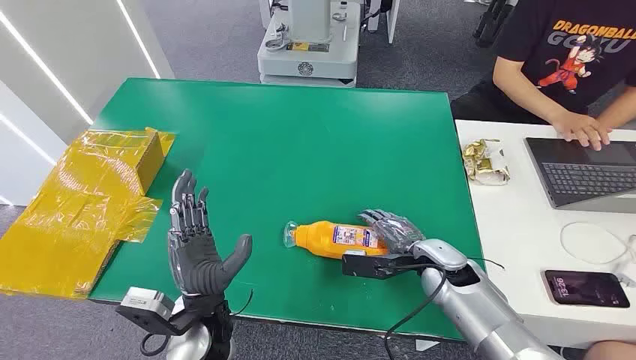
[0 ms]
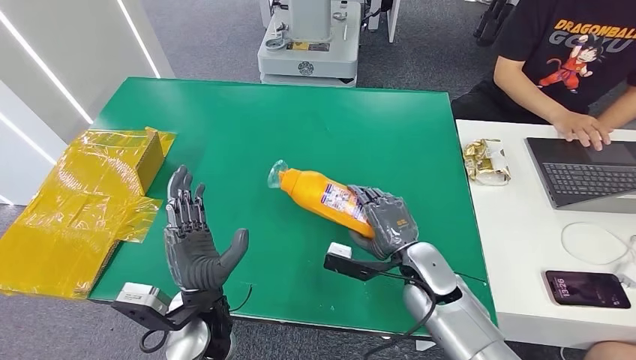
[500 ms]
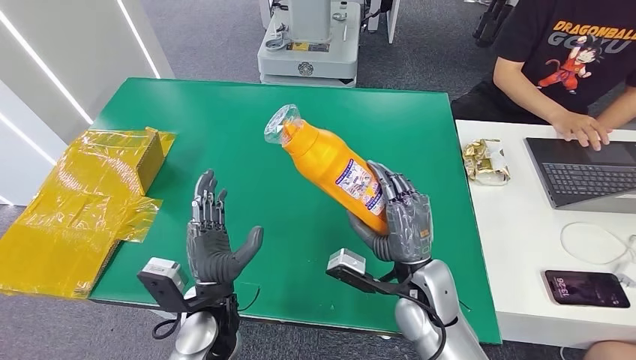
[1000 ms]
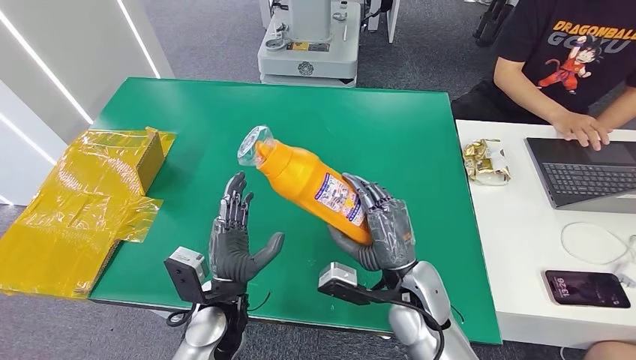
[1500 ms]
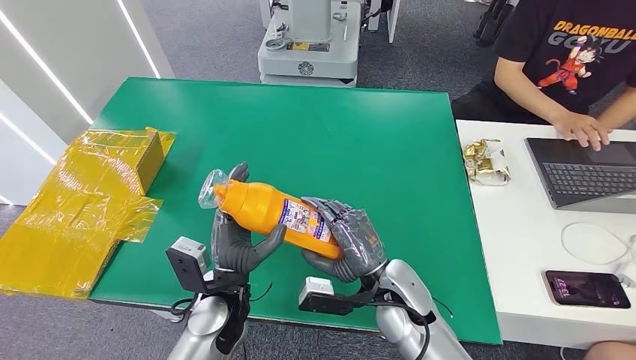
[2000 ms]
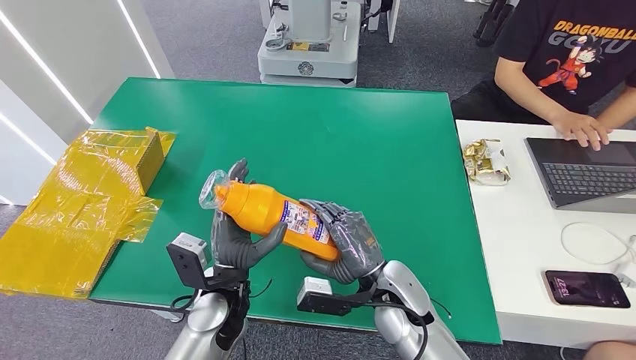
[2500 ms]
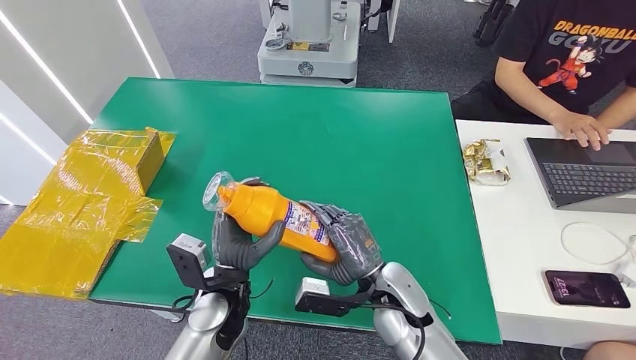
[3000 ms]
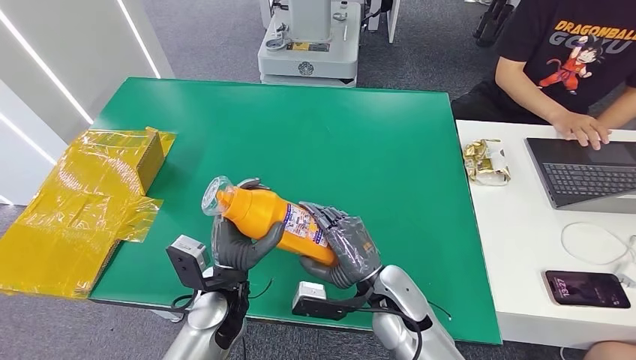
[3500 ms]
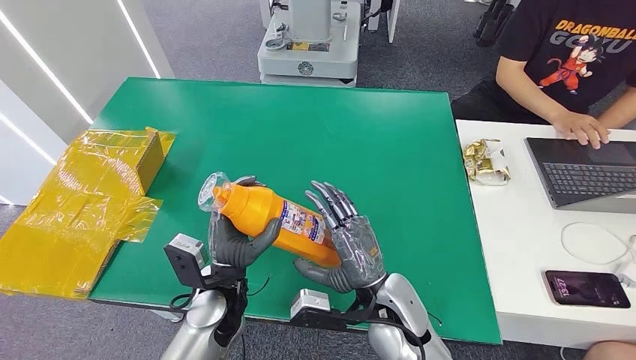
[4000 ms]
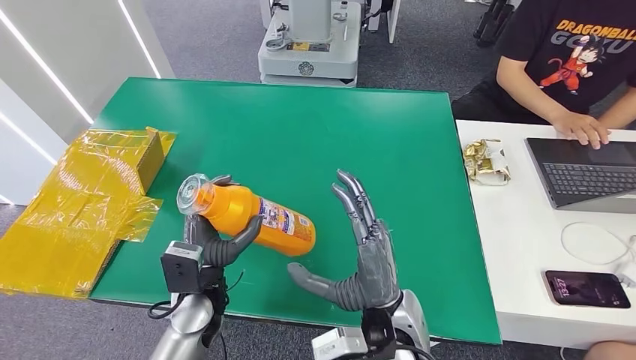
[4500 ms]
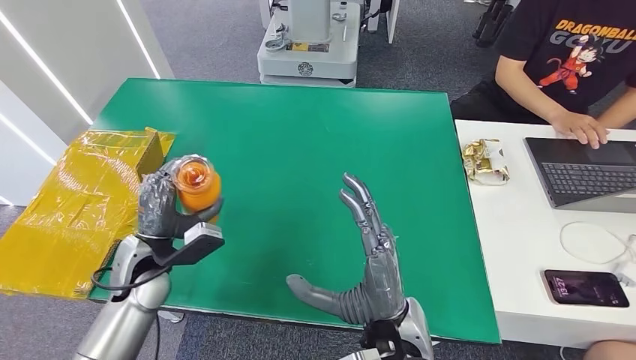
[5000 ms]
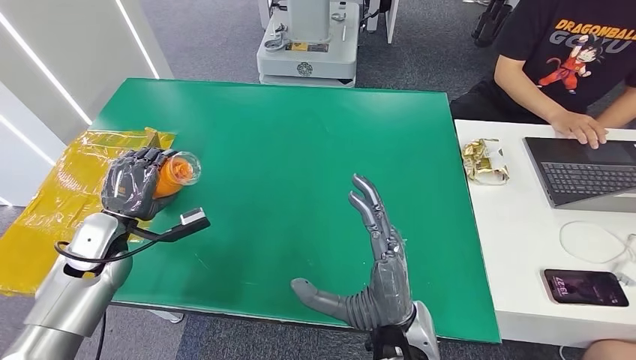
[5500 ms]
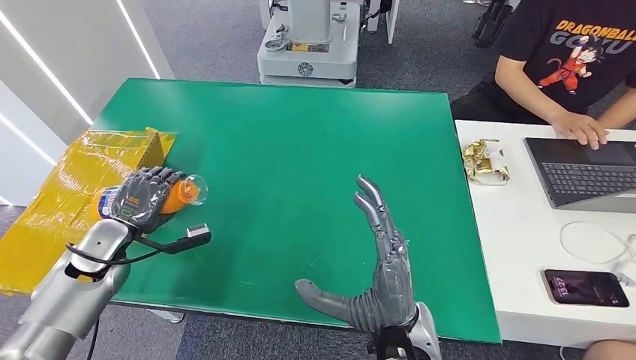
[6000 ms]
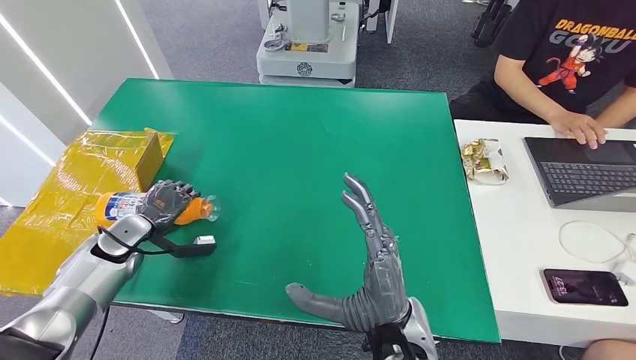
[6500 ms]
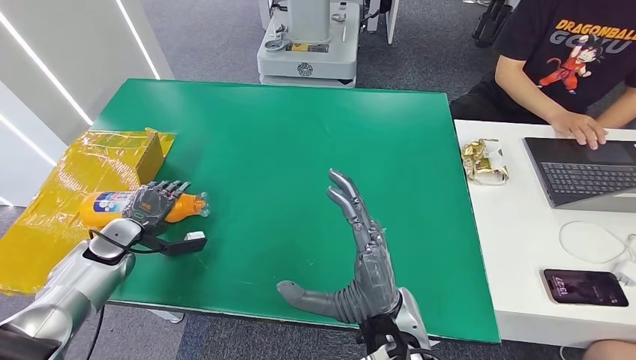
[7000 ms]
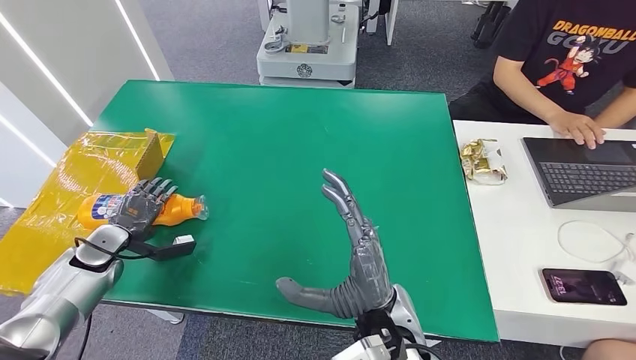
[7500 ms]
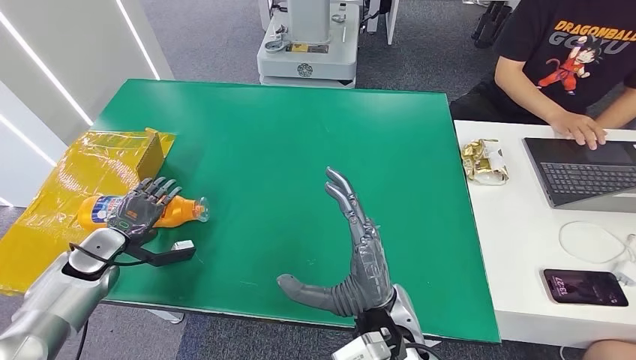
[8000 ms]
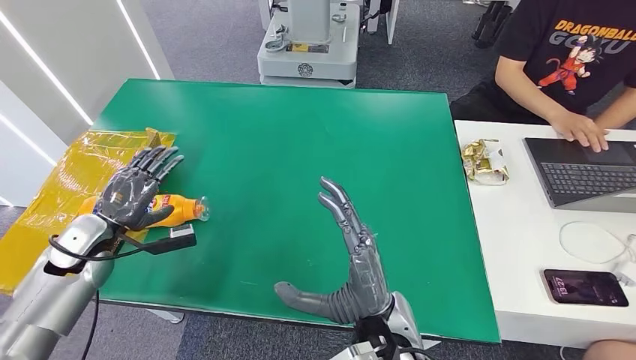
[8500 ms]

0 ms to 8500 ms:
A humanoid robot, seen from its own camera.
Step, 0 ms to 3500 ms: Pick up the bottle from the table.
Step, 4000 ms to 8500 ms: Turn the bottle to the front side.
2000 ms to 4000 ms: The hands make only small movements.
4000 ms to 6500 ms: The right hand shifts roughly 5 cm upward. The left hand travels to the left by roughly 25 cm.
6500 ms to 8500 ms: The left hand changes place by some 5 cm.

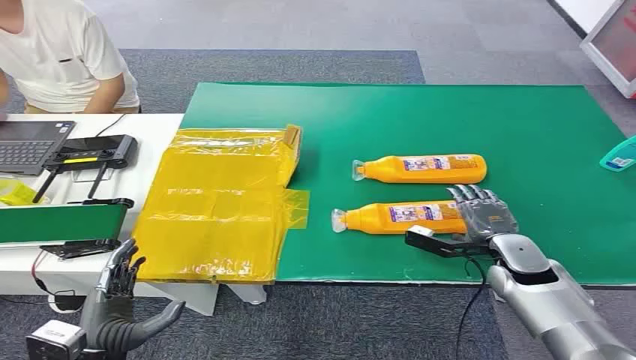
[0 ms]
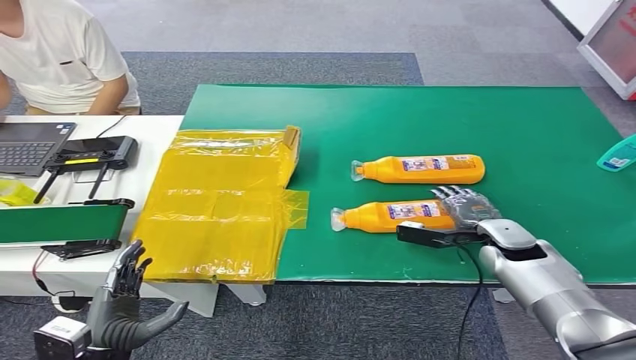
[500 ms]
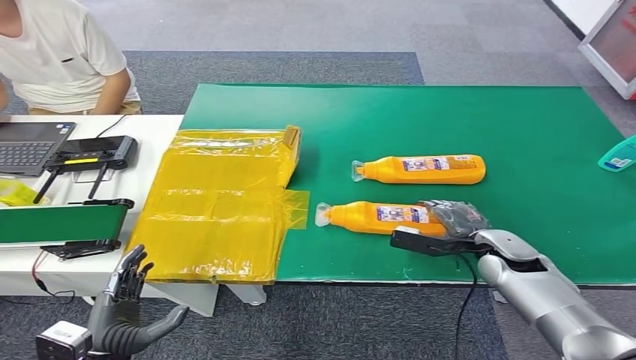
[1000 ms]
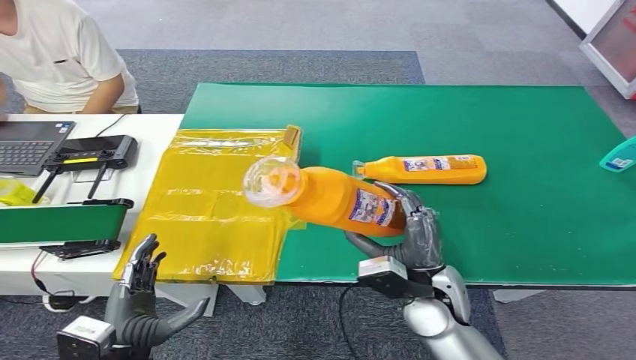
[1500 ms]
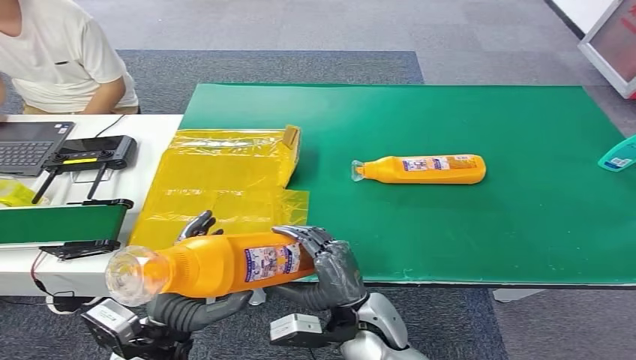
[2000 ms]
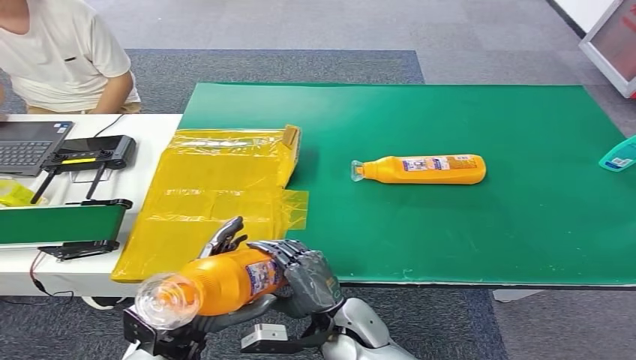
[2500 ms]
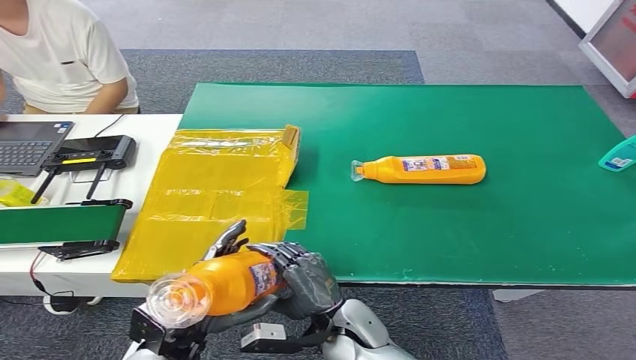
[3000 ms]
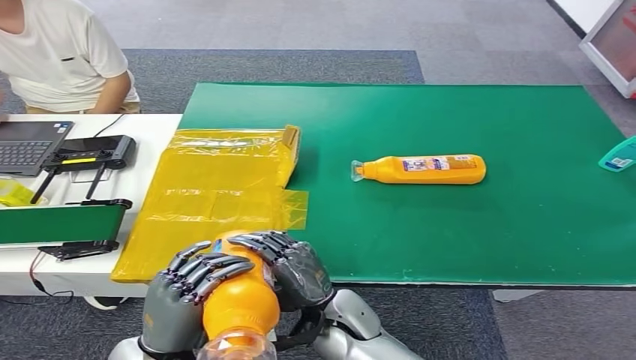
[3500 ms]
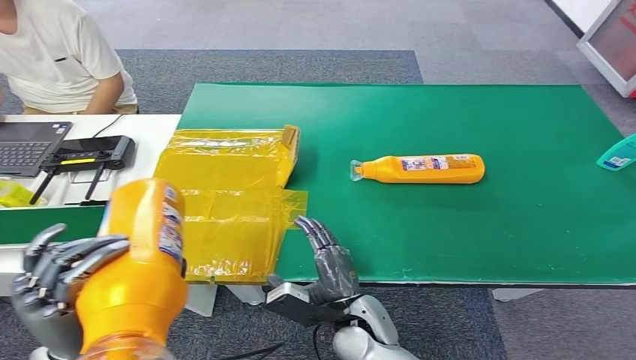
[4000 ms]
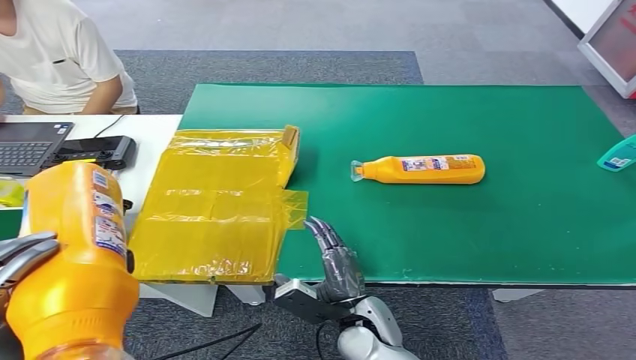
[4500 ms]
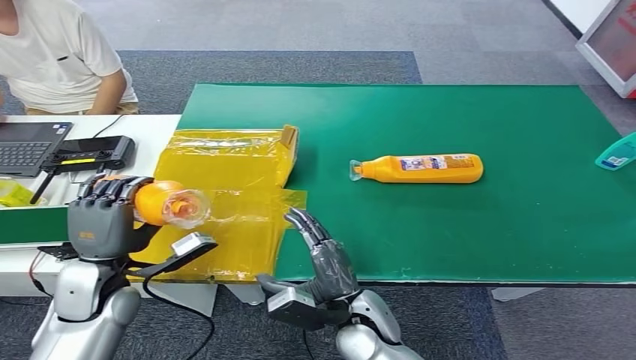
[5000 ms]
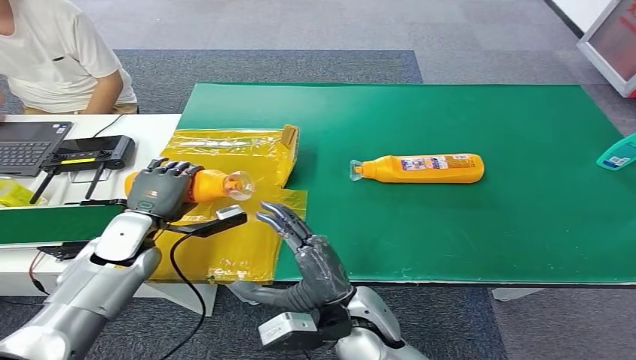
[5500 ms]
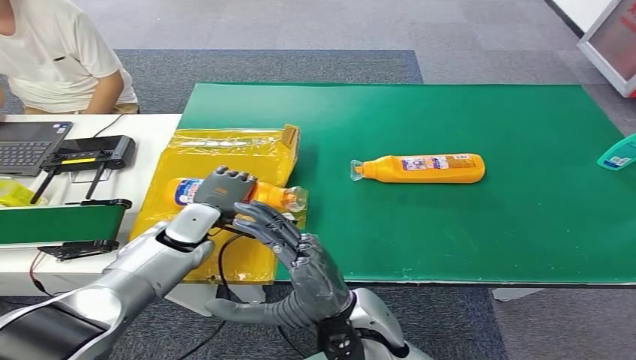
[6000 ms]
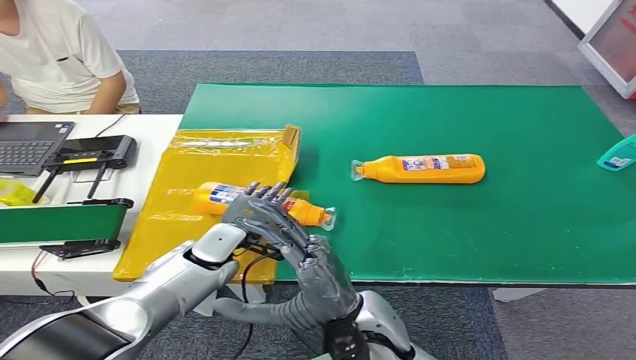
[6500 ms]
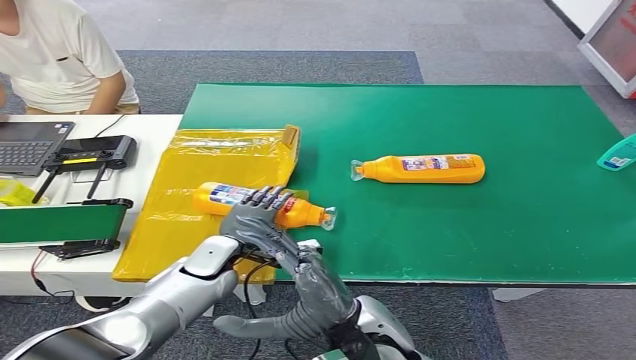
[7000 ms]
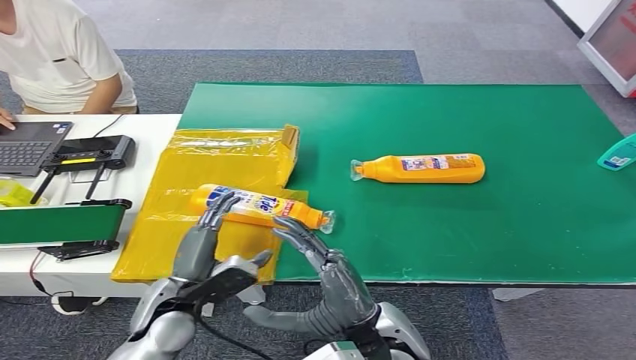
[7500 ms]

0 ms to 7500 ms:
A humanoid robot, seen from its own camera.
Step, 0 ms to 1500 ms: Pick up the bottle from the table.
Step, 3000 ms to 7500 ms: Turn the bottle to the front side.
2000 ms to 4000 ms: The right hand moves roughly 5 cm. Meanwhile the left hand is displaced upward by some 5 cm.
4000 ms to 5500 ms: The left hand goes some 20 cm forward. The right hand travels upward by approximately 10 cm.
5500 ms to 7500 ms: The left hand goes roughly 15 cm backward and to the right.
